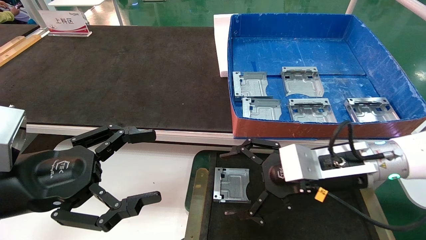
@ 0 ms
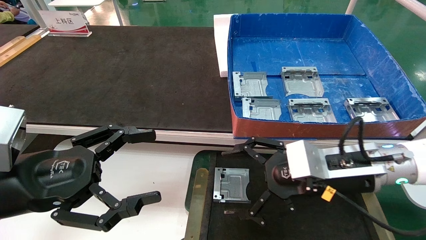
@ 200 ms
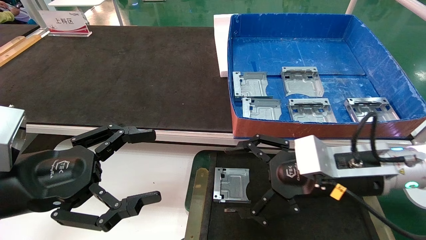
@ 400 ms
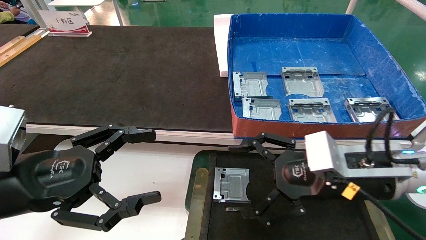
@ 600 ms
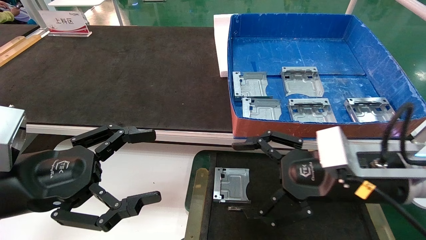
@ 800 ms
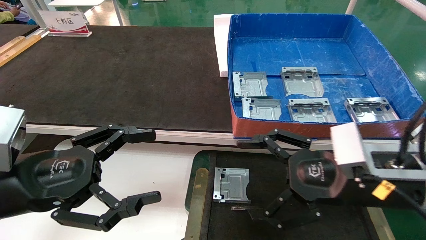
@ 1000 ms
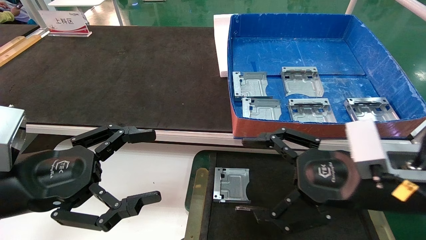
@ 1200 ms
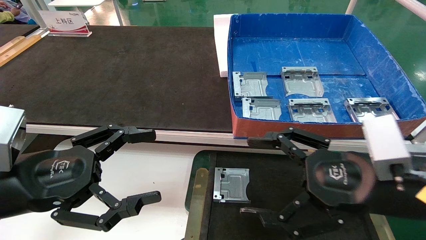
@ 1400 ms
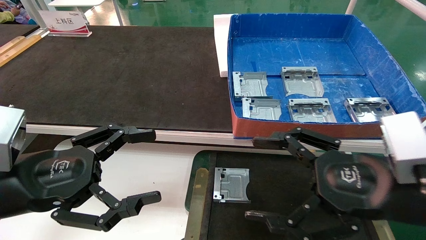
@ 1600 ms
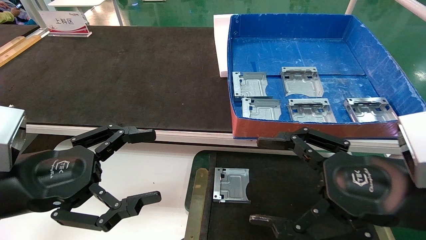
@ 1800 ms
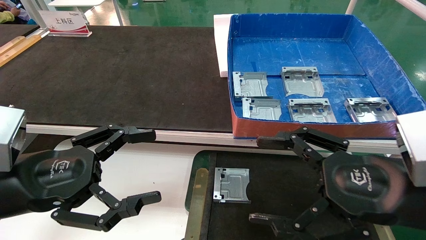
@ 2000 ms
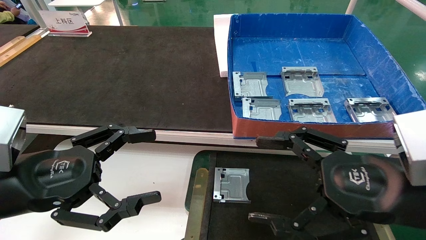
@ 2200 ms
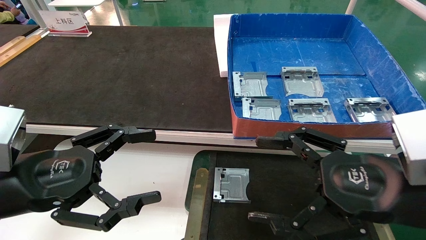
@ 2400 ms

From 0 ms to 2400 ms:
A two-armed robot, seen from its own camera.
Task of the whole recording: pick up parts and place them into a black container.
From 0 ms to 1200 ms: The right gripper is displaced backward by about 5 cm.
From 1200 ms to 2400 ms: The grippers move only a little.
